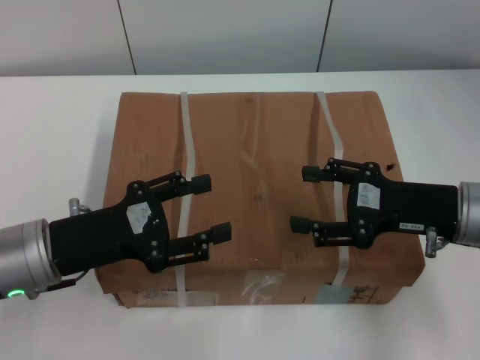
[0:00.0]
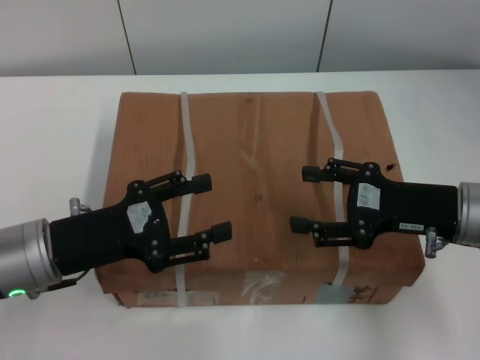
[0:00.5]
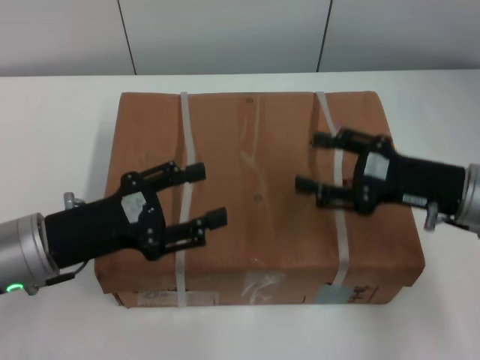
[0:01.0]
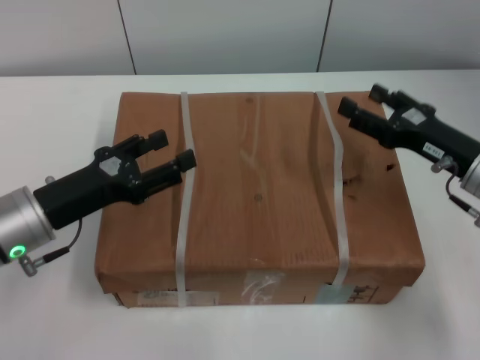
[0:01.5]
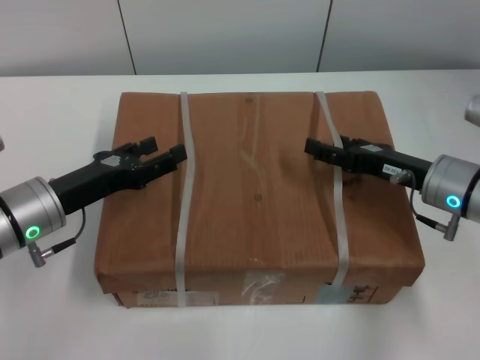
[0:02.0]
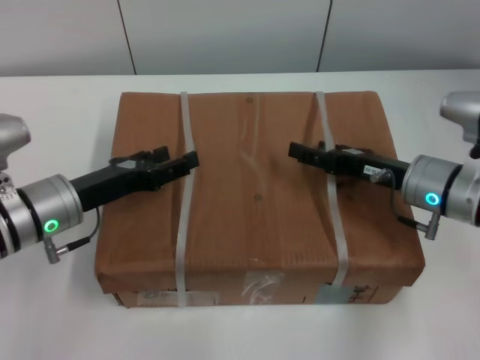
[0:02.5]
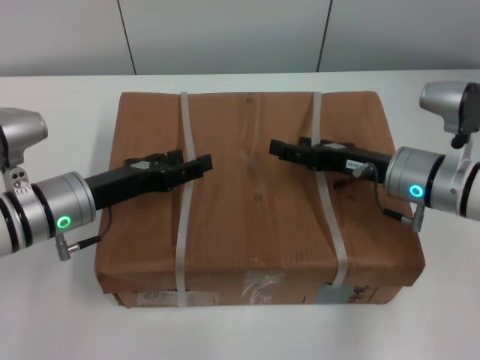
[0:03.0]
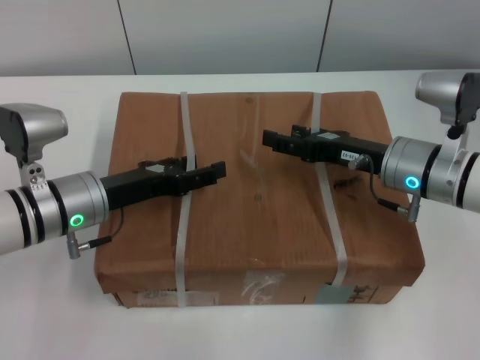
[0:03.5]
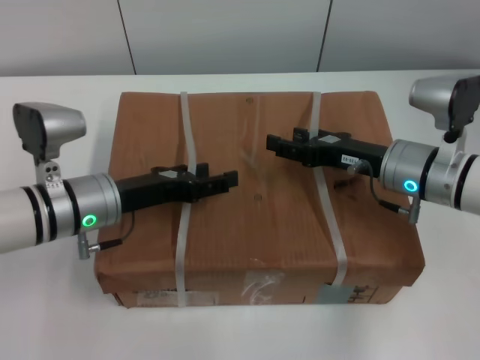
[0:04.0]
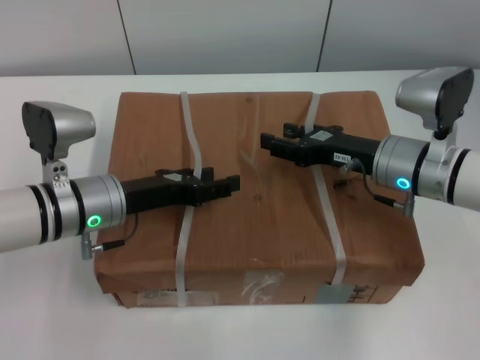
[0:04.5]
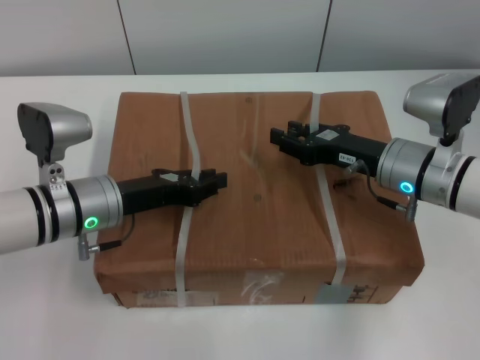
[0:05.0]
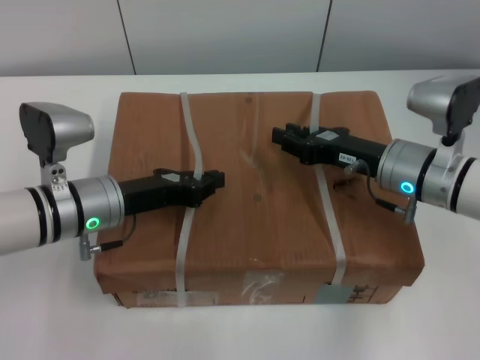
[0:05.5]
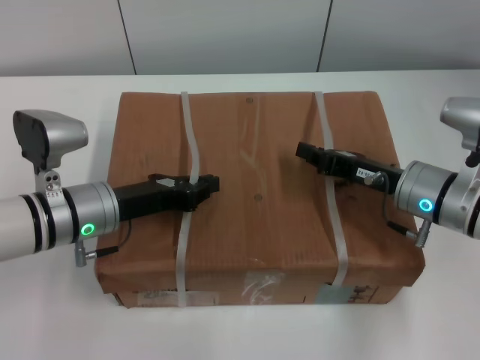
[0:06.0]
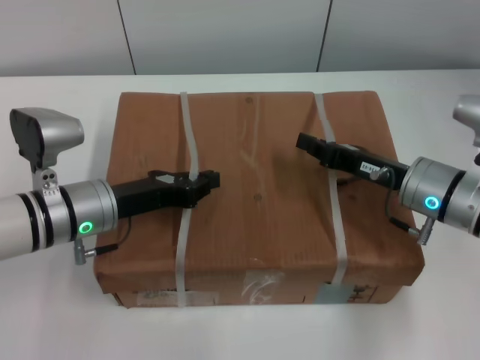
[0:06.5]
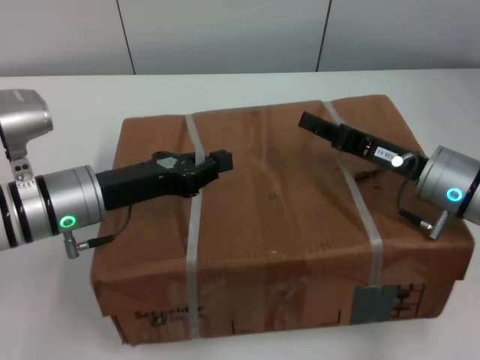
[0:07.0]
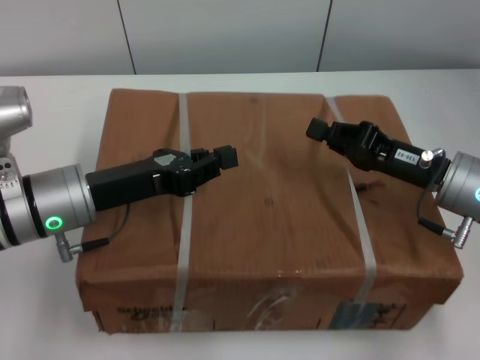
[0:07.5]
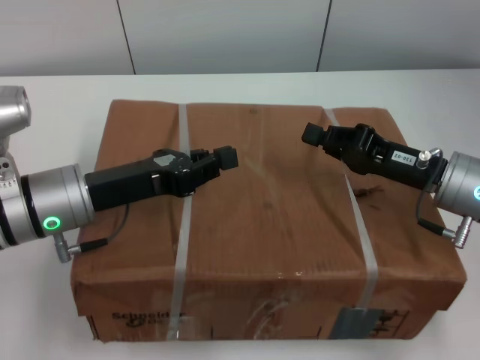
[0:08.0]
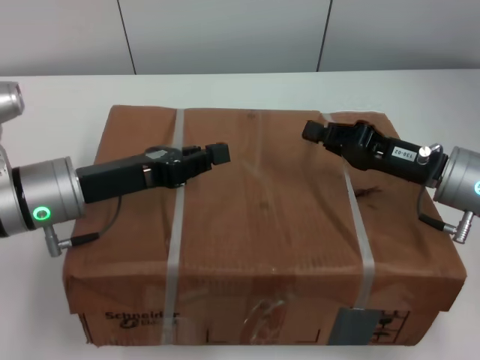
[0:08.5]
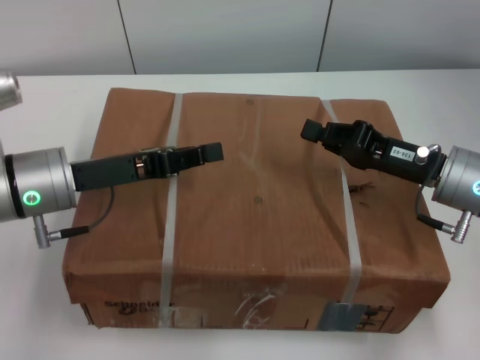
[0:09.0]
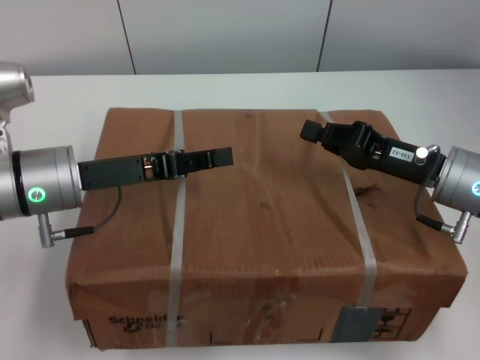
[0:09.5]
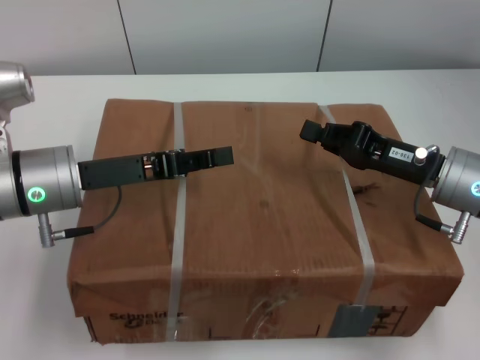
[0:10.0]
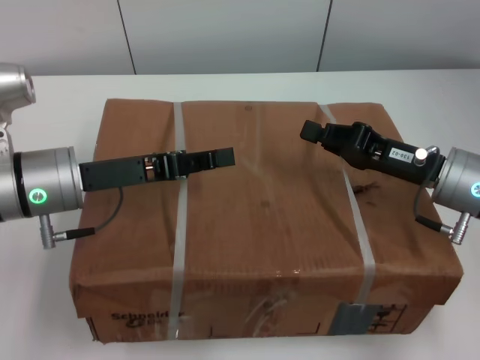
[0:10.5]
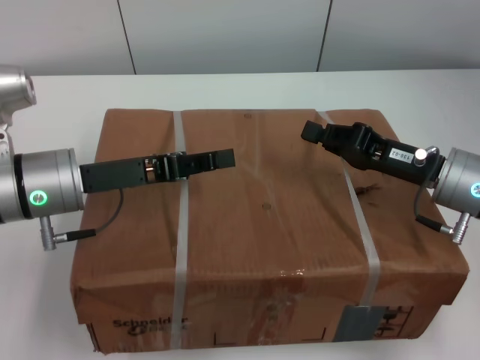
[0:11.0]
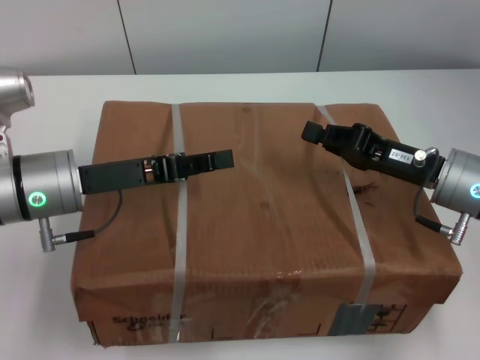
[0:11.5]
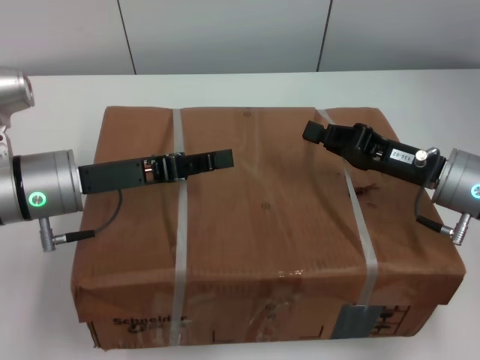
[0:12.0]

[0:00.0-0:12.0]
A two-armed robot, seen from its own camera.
Task of the whole recording: pick up the box from the table with both arms.
Step, 0:01.0 to 0:06.0: Grasp the bandage with left gripper.
Step, 0:01.0 to 0:06.0: Grasp the bandage with right gripper.
Step, 0:06.5 to 0:07.5: Lift the box with left gripper.
Step, 0:06.5 to 0:07.5: Lift the box with right gripper.
0:00.0 to 0:02.0: The right gripper ends up roughly 5 cm from where it was. The left gripper travels forward by about 5 cm.
0:02.0 to 0:04.0: The left gripper ends up some 5 cm from where it was.
0:04.0 to 0:06.0: The right gripper closes its fingers. Meanwhile the left gripper closes up.
0:06.0 to 0:08.0: The left gripper ends up roughly 5 cm from where it was.
0:08.0 to 0:10.0: There are only small adjustments of the grippers.
0:10.0 to 0:12.0: The two grippers keep their place.

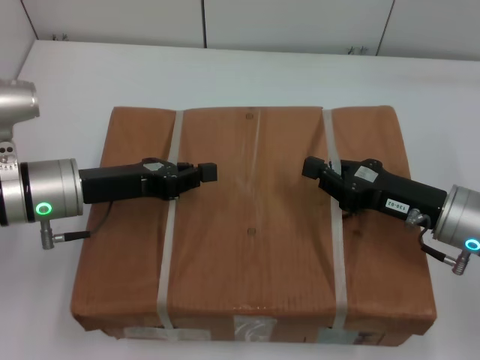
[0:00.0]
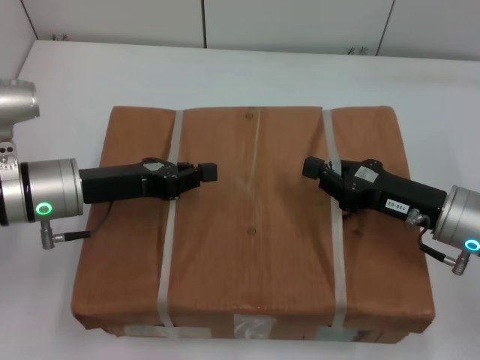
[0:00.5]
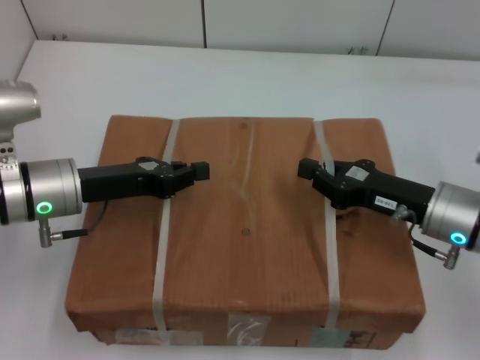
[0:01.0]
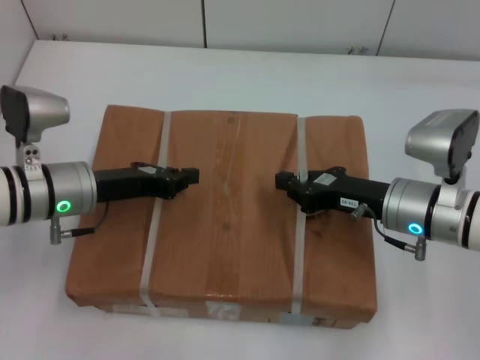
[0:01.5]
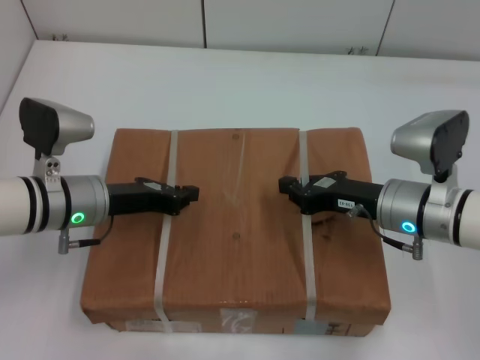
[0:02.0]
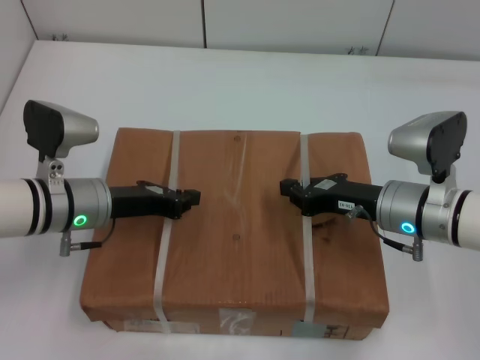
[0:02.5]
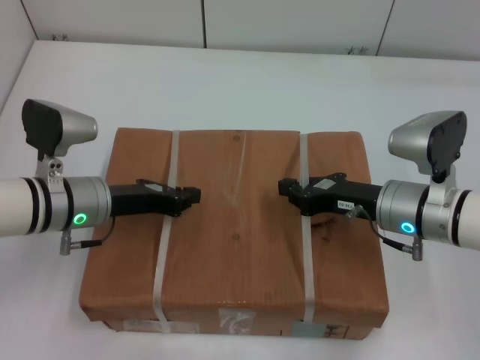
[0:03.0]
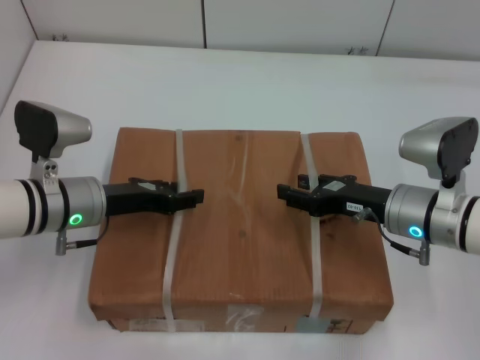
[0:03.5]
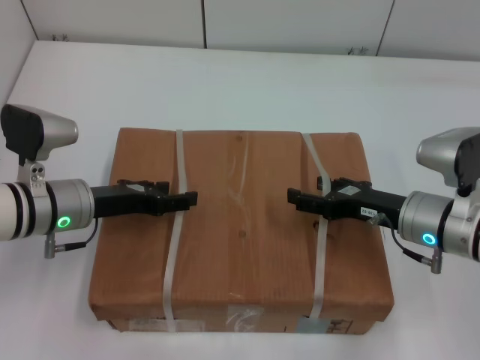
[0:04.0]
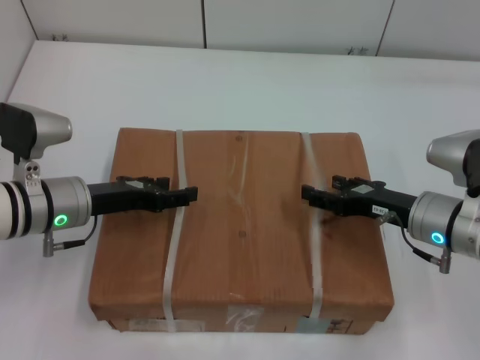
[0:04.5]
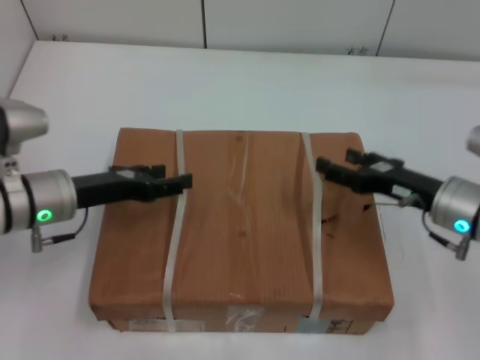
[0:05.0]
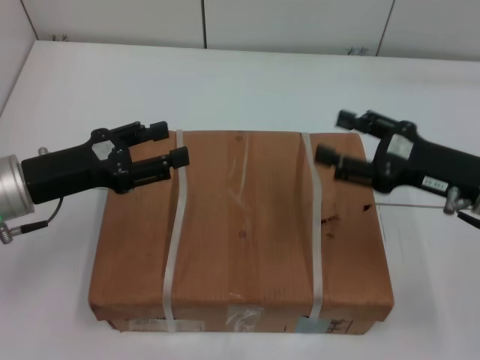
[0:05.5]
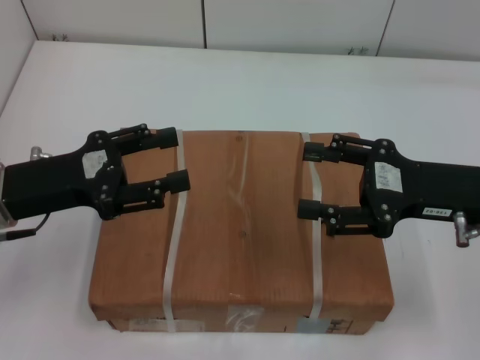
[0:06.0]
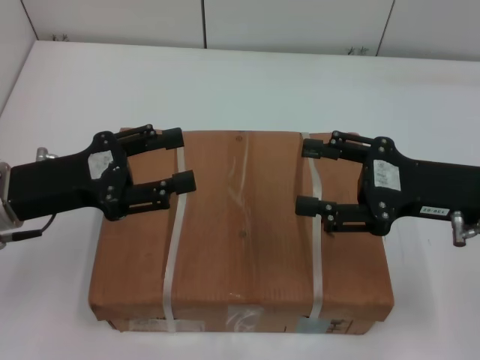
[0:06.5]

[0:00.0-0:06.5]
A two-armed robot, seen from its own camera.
Task of the whole recording: place the box on the table with both arms.
Step, 0:00.0 to 0:02.0: Place the box on the table with left gripper.
Step, 0:00.0 to 0:02.0: Place the box on the table with right gripper.
Step, 0:02.5 to 0:04.5: Loosen the box on the table with left gripper.
Step, 0:02.5 to 0:04.5: Loosen the box on the table with right gripper.
0:00.0 to 0:02.0: The right gripper changes place by approximately 5 cm.
0:02.0 to 0:04.5: The left gripper opens up. Meanwhile the right gripper opens its fingers.
0:04.5 to 0:06.5: The left gripper heads upward and backward, covering roughly 10 cm, while the right gripper shifts approximately 10 cm upward.
